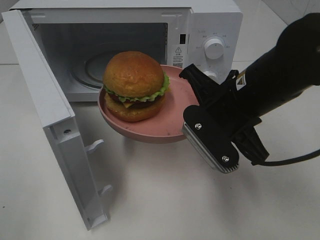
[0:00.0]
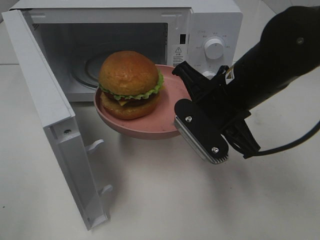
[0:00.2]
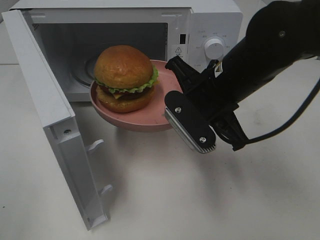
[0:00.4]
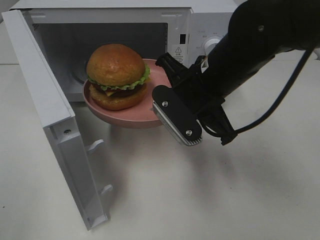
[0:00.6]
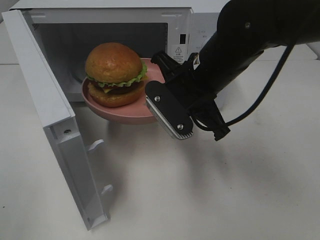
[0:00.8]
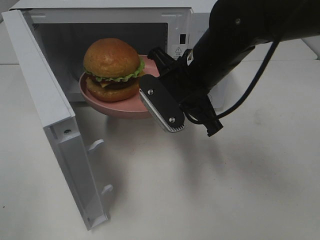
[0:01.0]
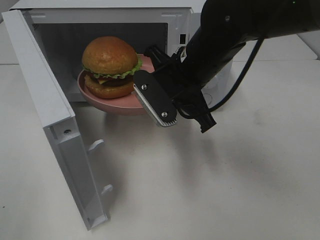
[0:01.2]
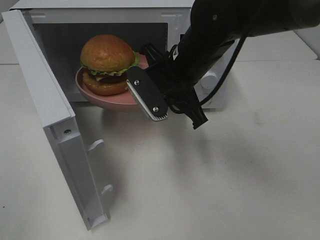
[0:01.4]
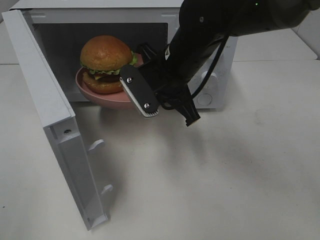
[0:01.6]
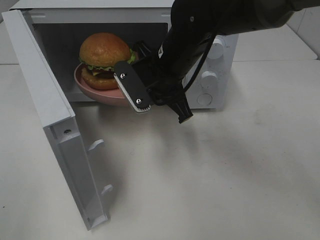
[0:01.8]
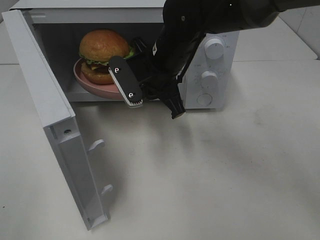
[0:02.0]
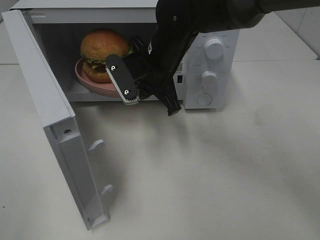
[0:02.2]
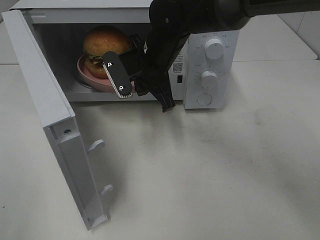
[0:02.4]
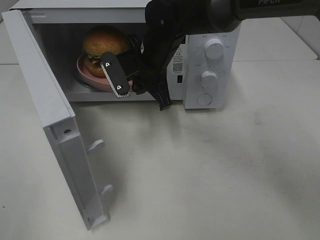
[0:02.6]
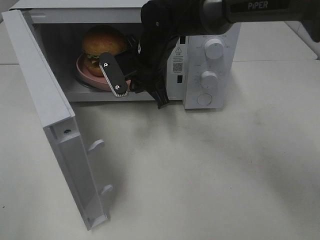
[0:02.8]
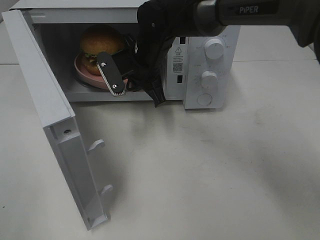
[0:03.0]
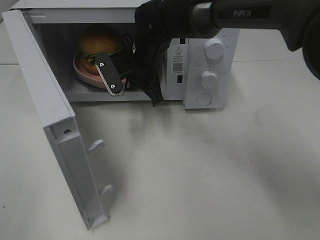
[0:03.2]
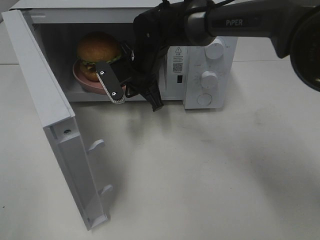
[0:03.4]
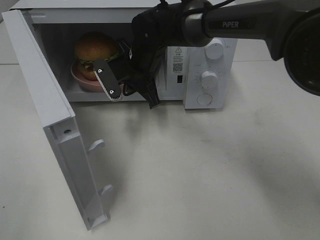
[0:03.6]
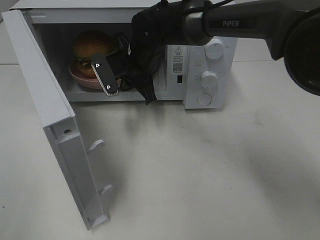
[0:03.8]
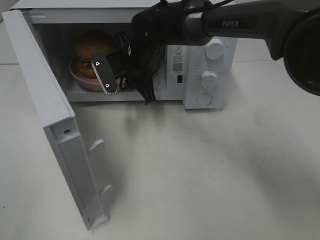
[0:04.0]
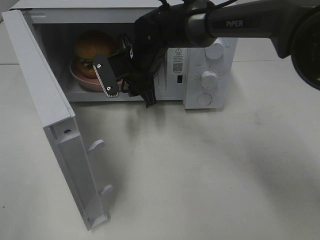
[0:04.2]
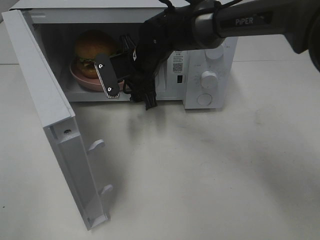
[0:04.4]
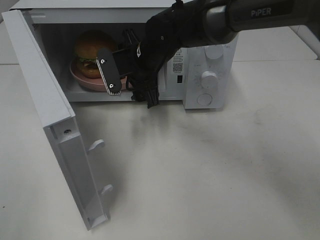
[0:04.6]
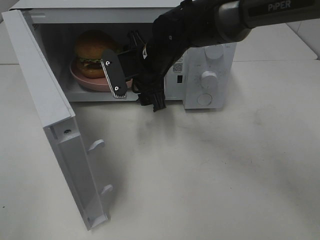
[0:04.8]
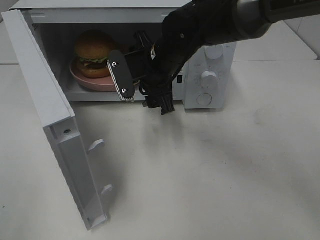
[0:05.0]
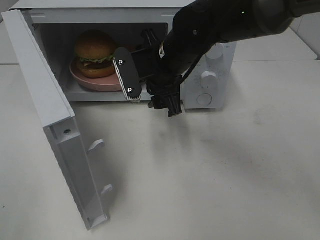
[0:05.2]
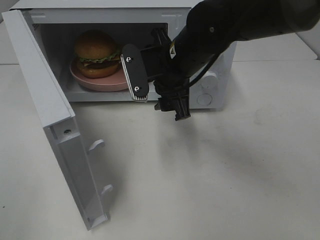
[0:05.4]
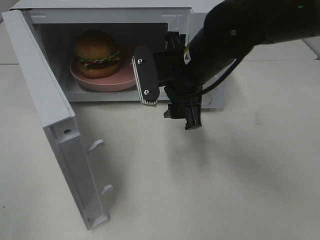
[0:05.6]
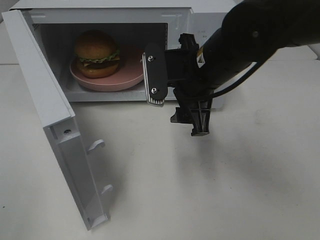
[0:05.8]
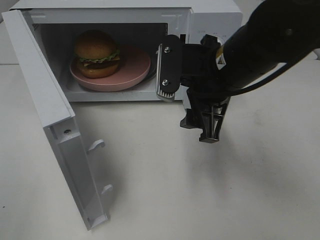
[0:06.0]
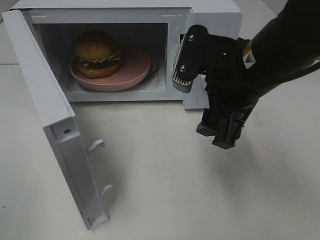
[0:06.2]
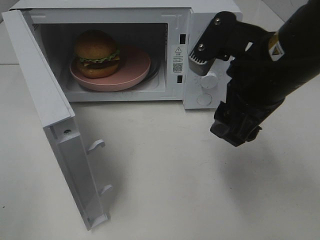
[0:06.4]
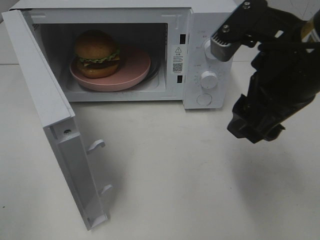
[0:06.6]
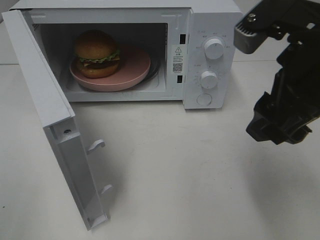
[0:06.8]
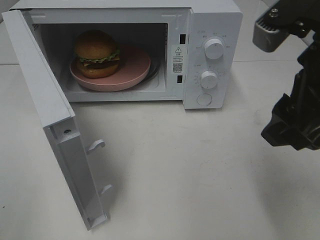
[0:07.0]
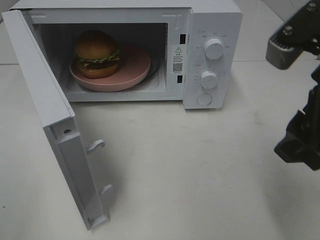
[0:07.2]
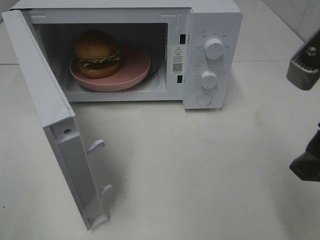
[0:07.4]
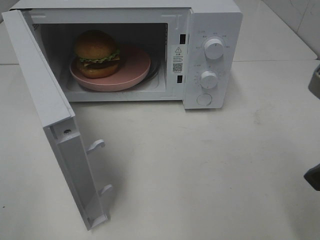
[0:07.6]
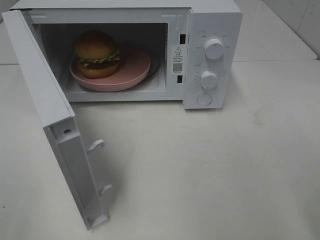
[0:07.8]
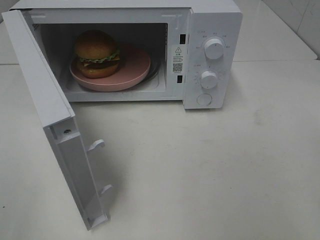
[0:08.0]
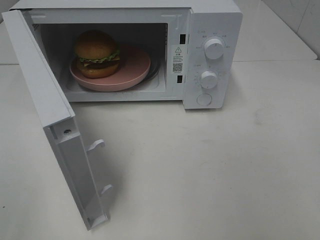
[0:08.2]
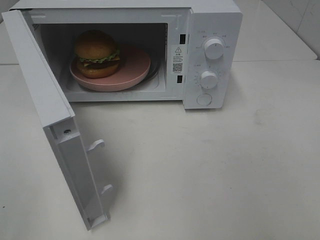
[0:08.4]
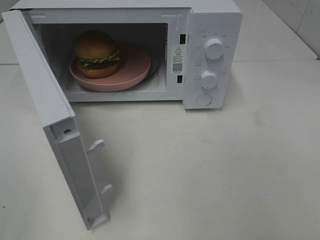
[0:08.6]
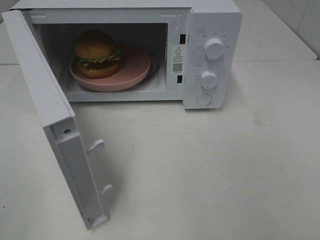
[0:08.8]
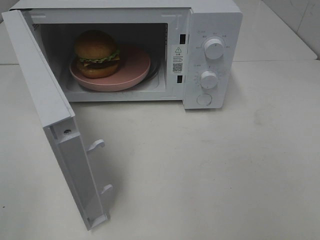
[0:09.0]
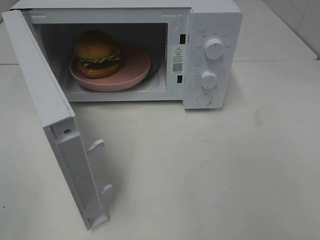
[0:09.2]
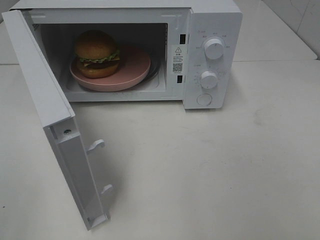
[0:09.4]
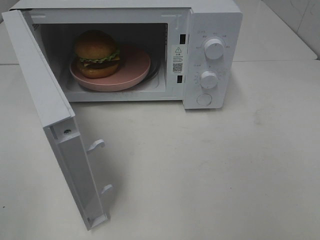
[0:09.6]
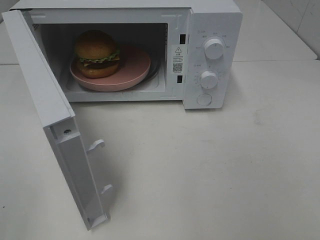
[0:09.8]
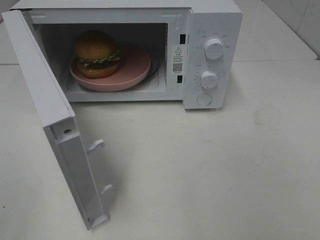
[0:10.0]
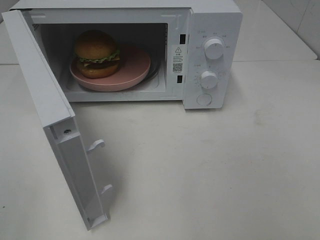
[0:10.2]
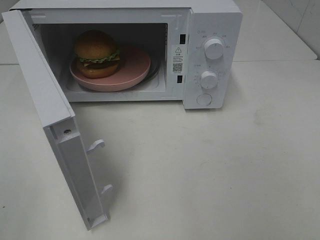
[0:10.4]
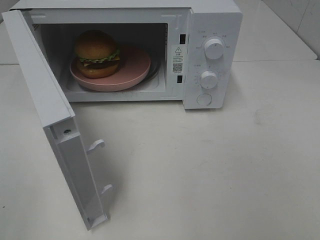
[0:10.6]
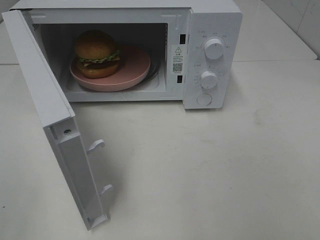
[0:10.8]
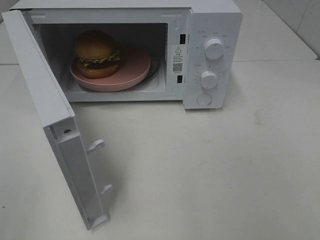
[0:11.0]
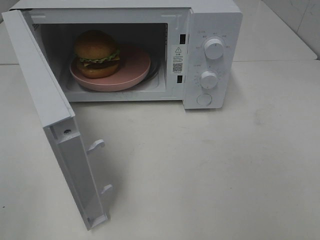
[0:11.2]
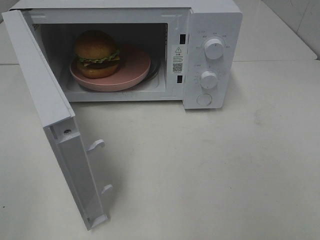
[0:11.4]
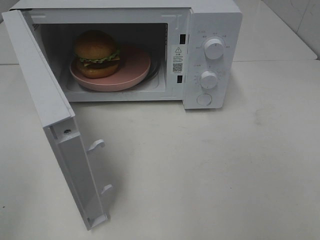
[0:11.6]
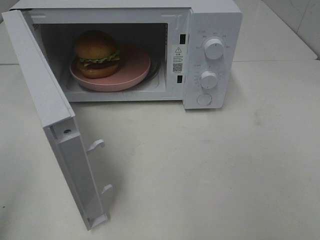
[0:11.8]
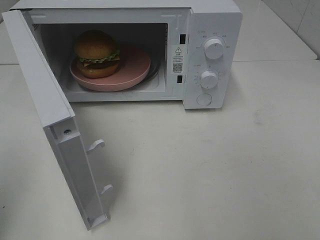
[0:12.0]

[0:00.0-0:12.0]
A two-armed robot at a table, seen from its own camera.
Task of the whole recording: Heat the burger.
Step, 0:00.0 to 0:04.4: Right hand: place the plate in the microwave.
0:00.0 to 0:01.6: The right gripper travels forward and to the left by some 10 cm.
0:01.6 to 0:03.0: The right gripper goes about 5 cm forward.
0:03.0 to 0:04.4: The right gripper opens up.
0:04.4 to 0:06.0: The right gripper moves backward, to the right and upward, roughly 20 cm.
0:06.0 to 0:07.6: The right gripper moves backward and to the right, some 20 cm.
0:07.6 to 0:09.0: The right gripper travels backward and to the right by approximately 15 cm.
0:09.0 to 0:10.4: The two grippers keep their place.

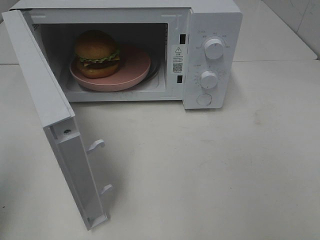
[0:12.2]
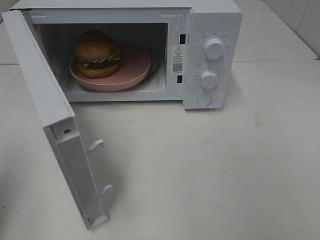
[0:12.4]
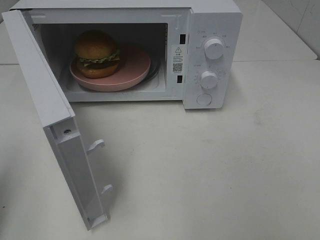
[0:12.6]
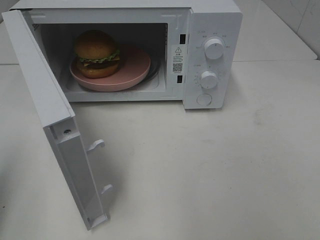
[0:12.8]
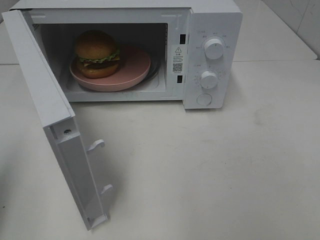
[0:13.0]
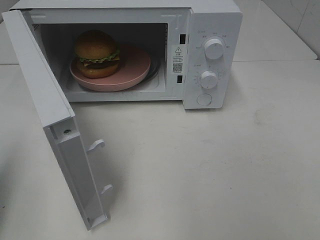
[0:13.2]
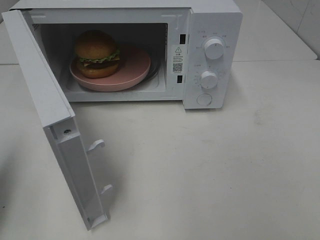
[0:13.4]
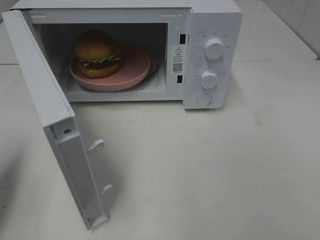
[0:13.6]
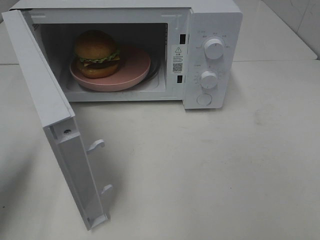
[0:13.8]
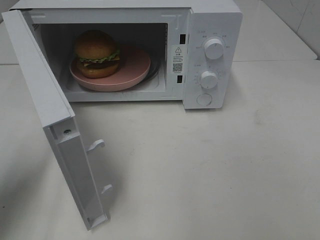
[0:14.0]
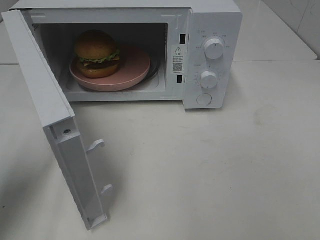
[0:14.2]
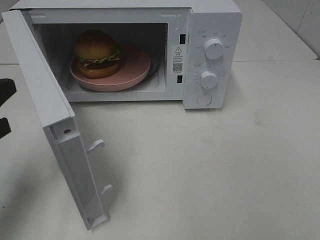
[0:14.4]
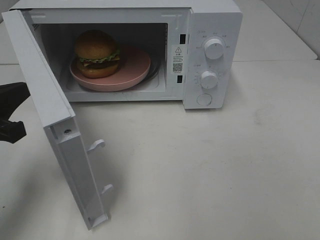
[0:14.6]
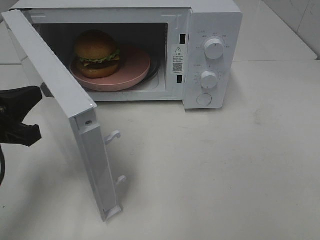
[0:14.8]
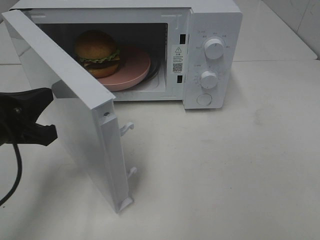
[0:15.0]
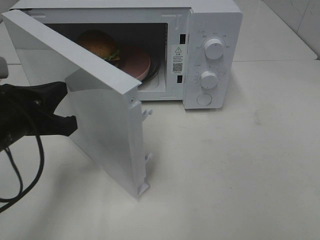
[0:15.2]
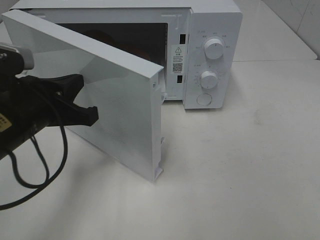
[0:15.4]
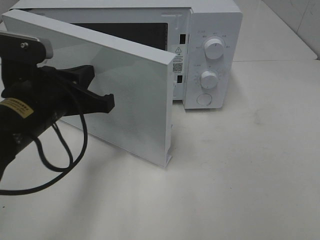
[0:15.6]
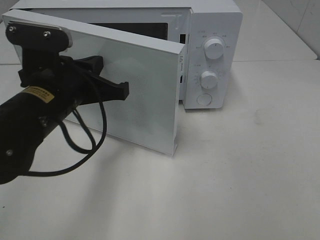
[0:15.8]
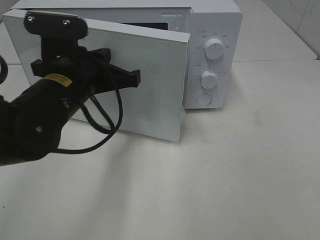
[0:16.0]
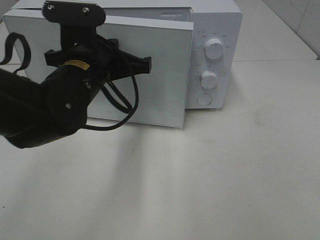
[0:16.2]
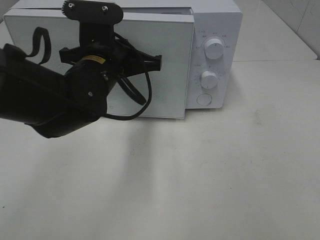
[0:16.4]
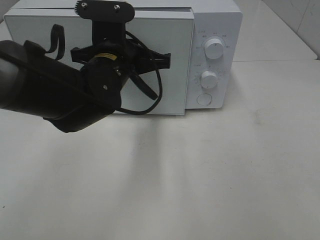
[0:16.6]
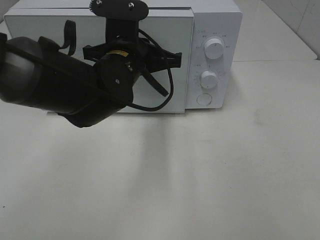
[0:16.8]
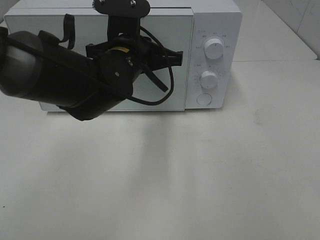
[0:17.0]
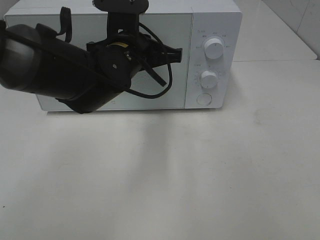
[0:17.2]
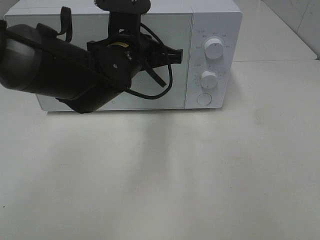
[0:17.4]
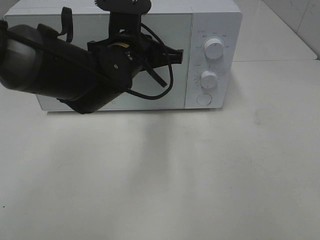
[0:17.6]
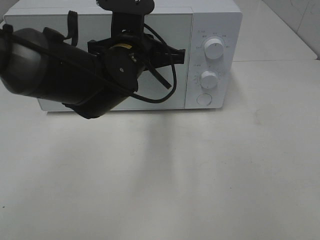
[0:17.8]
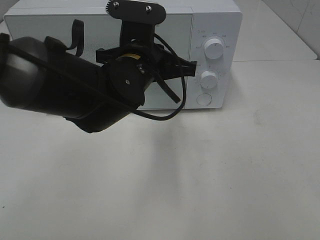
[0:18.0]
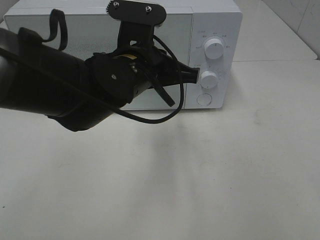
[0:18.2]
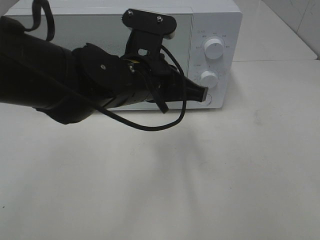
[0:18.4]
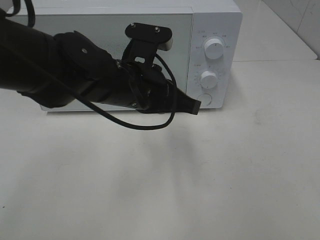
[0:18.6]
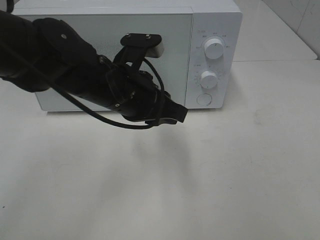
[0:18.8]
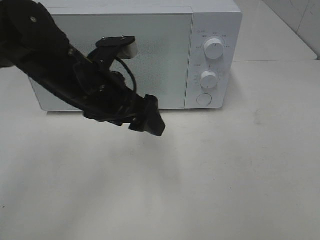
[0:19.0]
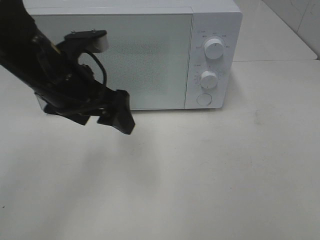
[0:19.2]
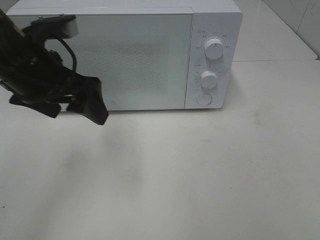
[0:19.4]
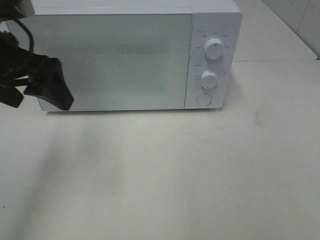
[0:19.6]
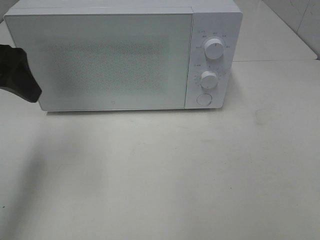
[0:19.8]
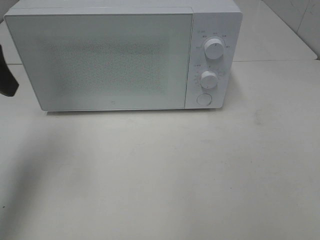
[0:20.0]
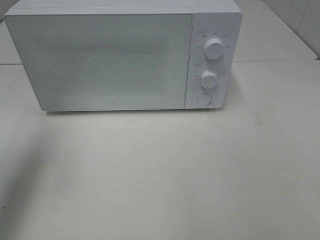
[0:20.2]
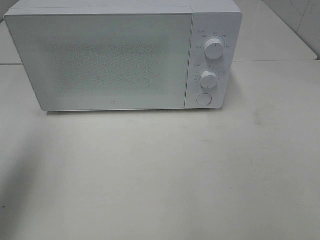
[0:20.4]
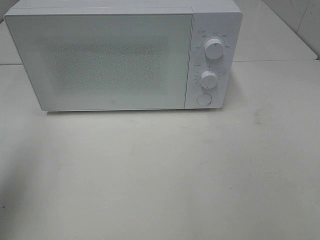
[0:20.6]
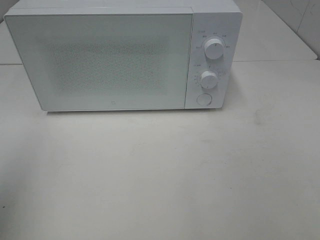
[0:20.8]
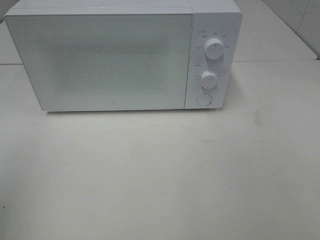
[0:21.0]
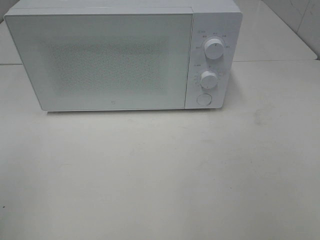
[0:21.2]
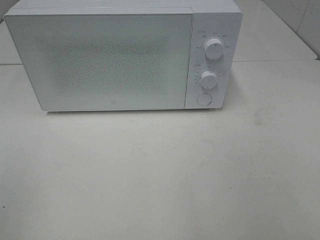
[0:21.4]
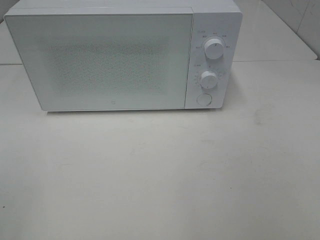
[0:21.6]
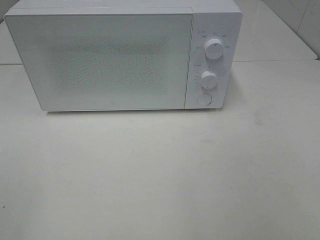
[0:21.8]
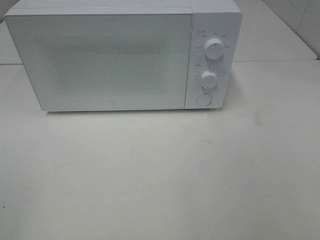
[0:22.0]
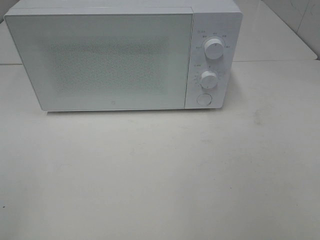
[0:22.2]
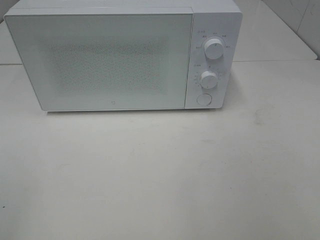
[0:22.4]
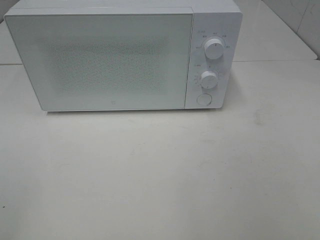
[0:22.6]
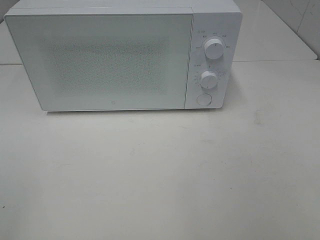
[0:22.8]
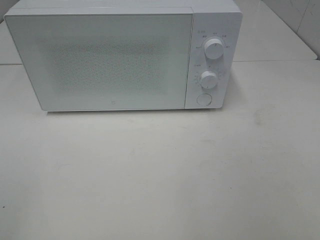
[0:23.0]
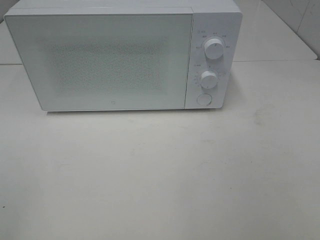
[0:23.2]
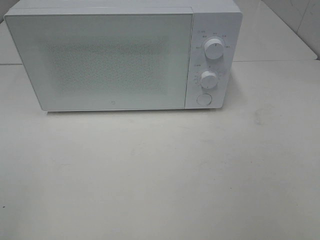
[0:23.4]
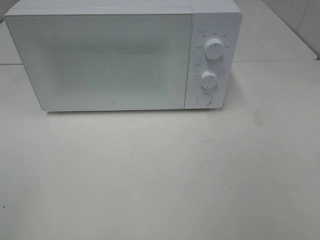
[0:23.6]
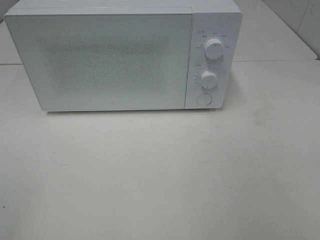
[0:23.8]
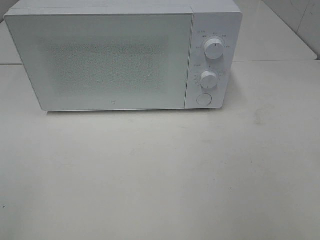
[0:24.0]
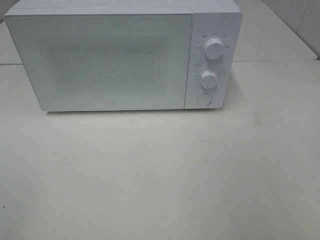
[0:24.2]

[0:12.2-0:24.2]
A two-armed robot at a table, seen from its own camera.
Task of the whole recording: Heat the burger.
Step, 0:12.2 to 0:18.6: Left hand: close the microwave door.
0:12.2 to 0:13.8: The left gripper moves downward and forward, about 10 cm.
0:13.8 to 0:15.2: The left gripper travels to the right by about 10 cm.
0:15.2 to 0:16.6: The left gripper moves to the right and forward, about 15 cm.
0:16.6 to 0:18.2: There are only small adjustments of the grippers.
0:18.2 to 0:19.8: The left gripper travels to the left and upward by some 25 cm, and opens.
0:19.8 to 0:21.2: The left gripper is displaced backward by some 20 cm.
